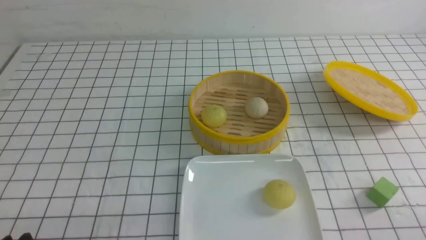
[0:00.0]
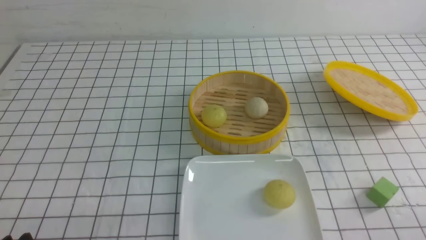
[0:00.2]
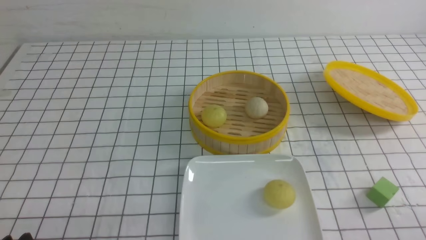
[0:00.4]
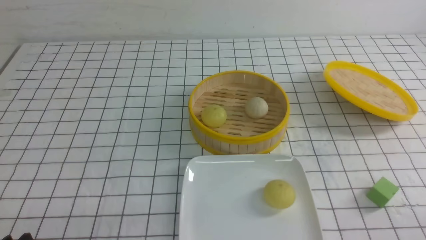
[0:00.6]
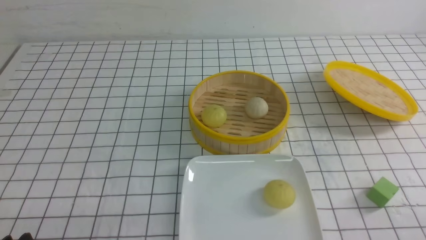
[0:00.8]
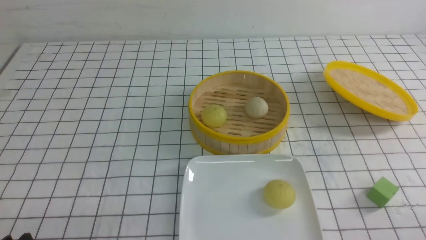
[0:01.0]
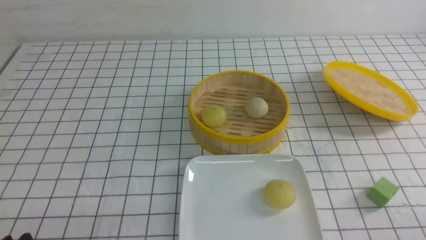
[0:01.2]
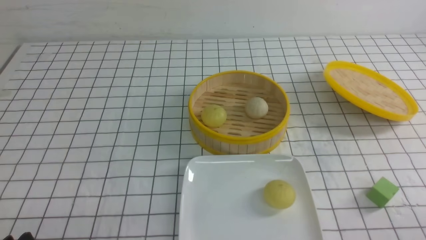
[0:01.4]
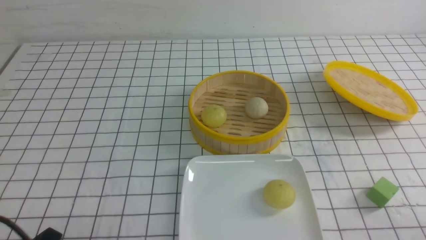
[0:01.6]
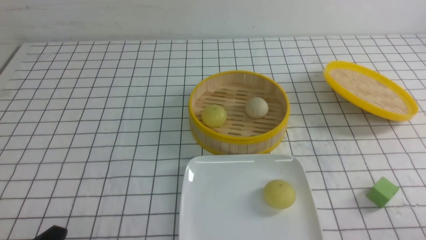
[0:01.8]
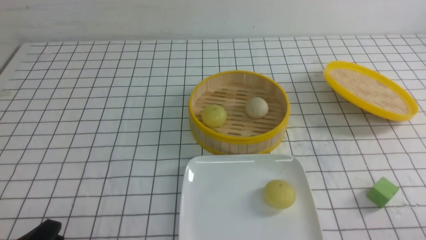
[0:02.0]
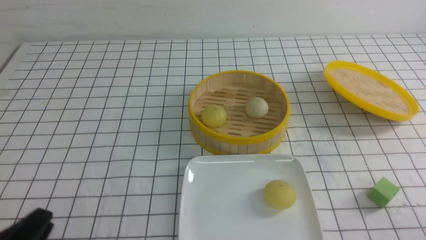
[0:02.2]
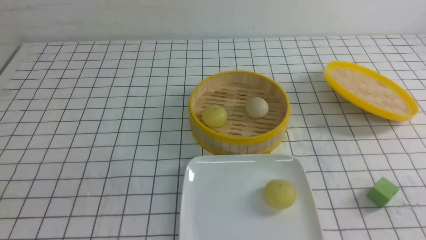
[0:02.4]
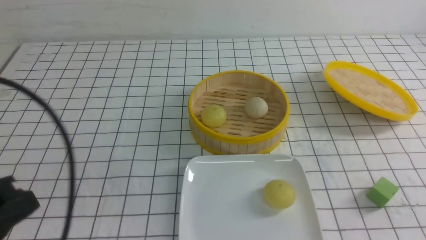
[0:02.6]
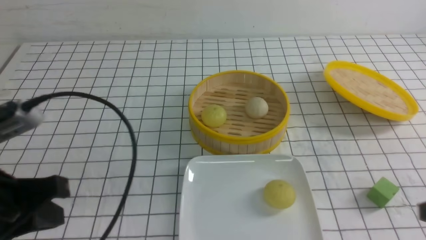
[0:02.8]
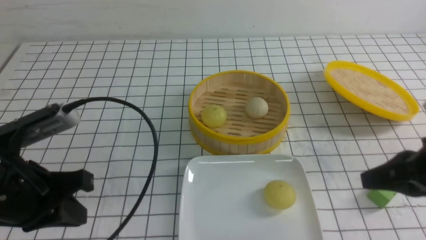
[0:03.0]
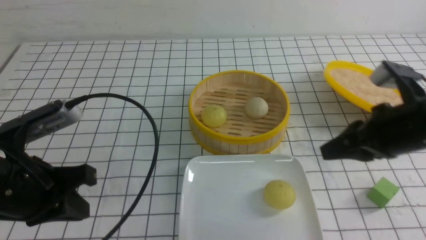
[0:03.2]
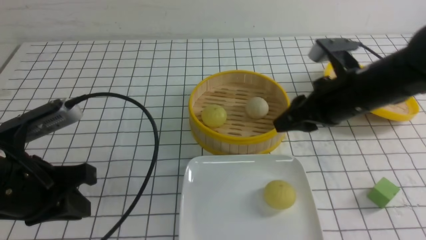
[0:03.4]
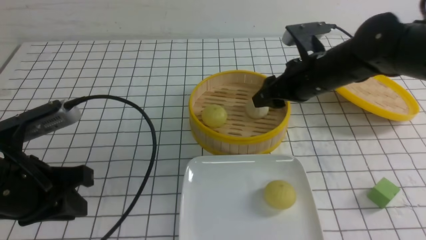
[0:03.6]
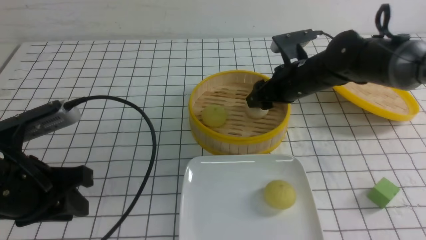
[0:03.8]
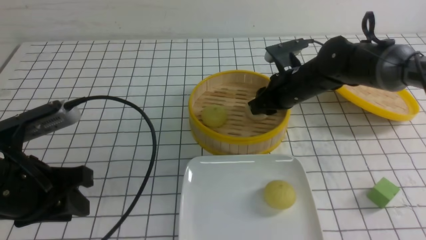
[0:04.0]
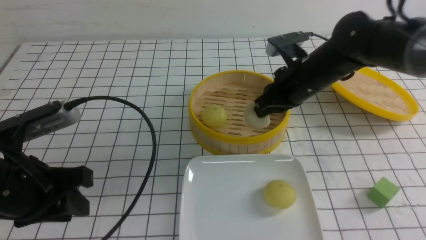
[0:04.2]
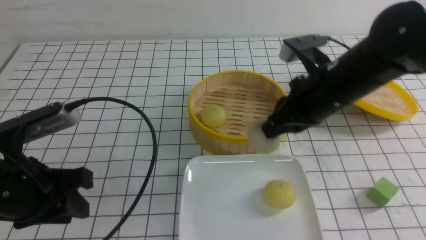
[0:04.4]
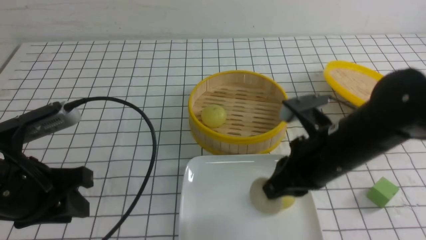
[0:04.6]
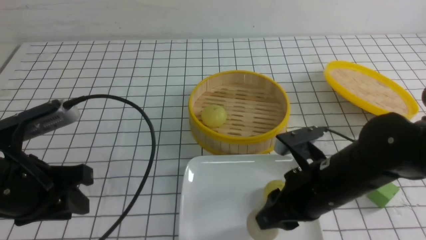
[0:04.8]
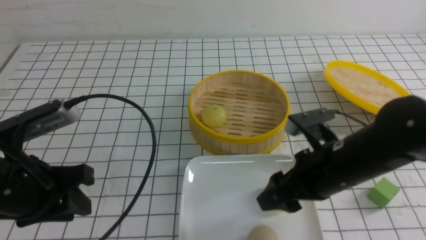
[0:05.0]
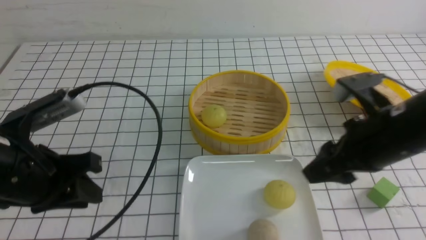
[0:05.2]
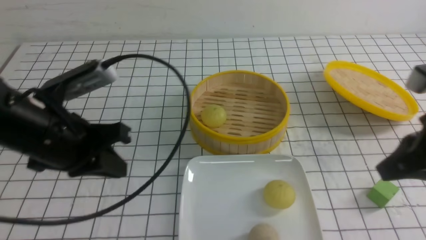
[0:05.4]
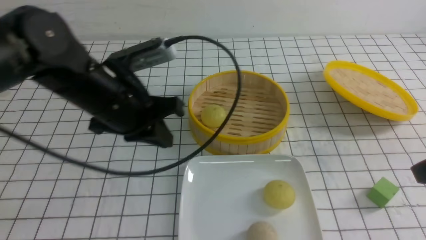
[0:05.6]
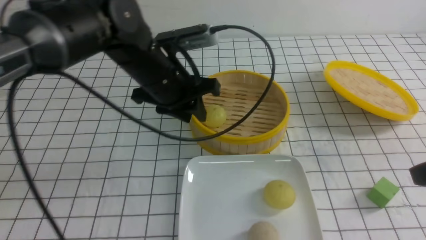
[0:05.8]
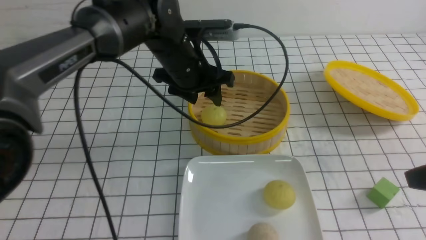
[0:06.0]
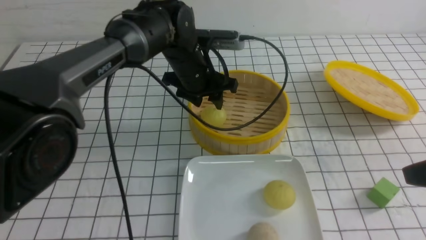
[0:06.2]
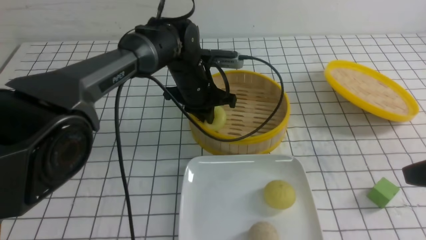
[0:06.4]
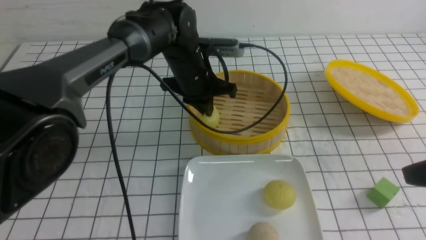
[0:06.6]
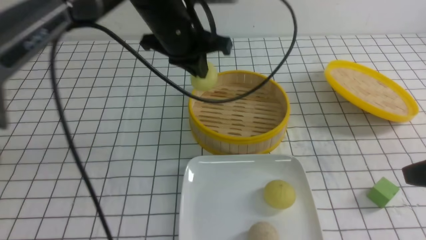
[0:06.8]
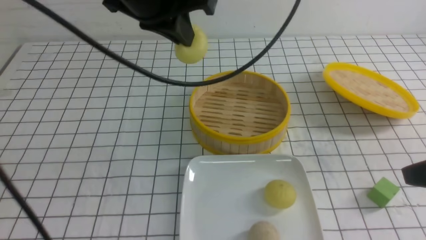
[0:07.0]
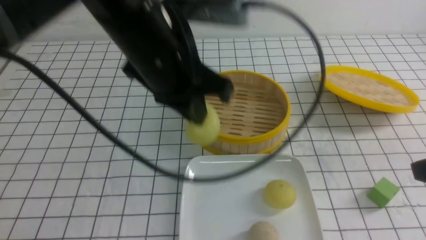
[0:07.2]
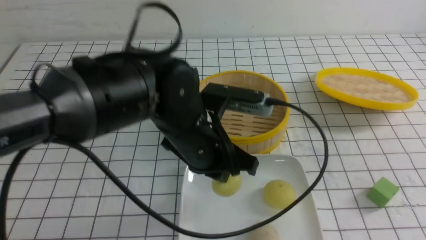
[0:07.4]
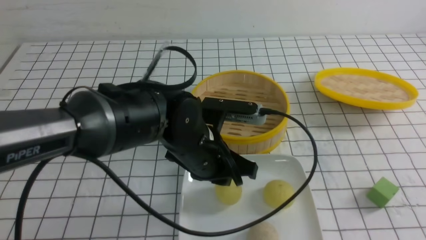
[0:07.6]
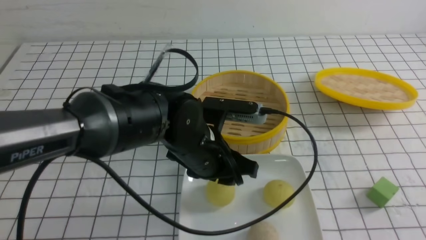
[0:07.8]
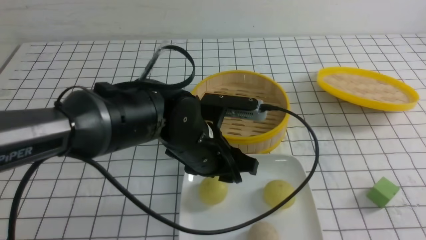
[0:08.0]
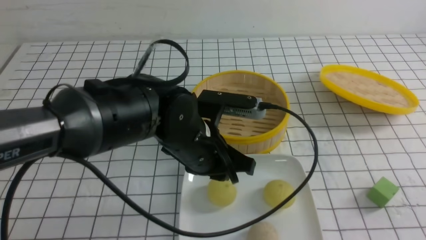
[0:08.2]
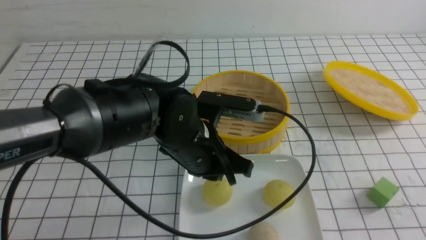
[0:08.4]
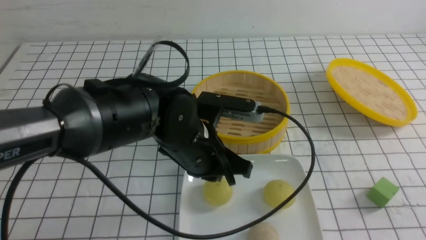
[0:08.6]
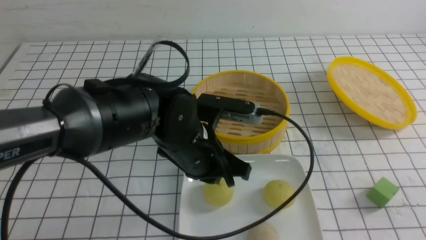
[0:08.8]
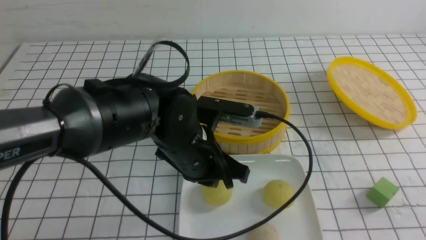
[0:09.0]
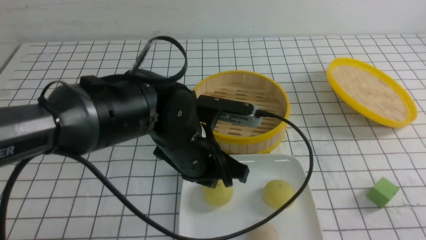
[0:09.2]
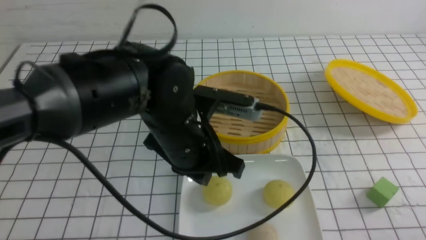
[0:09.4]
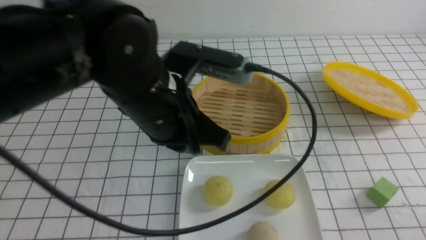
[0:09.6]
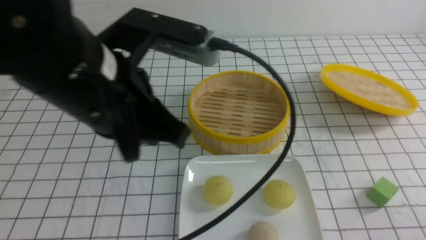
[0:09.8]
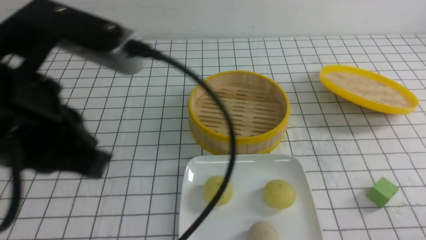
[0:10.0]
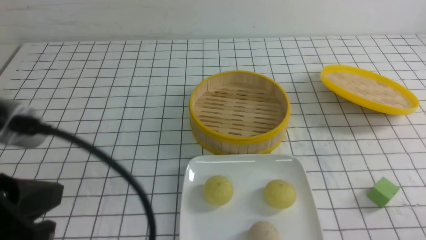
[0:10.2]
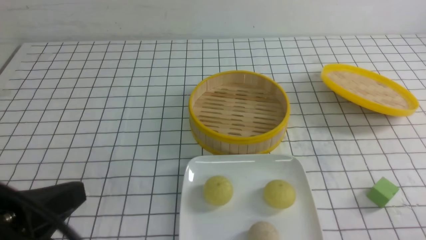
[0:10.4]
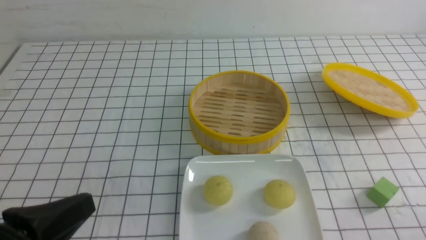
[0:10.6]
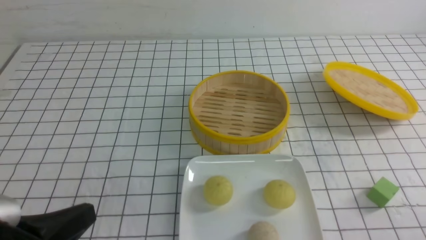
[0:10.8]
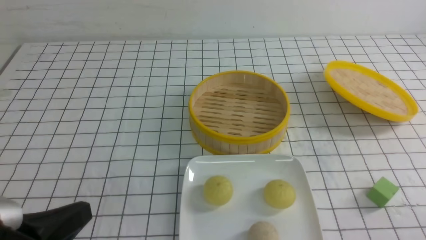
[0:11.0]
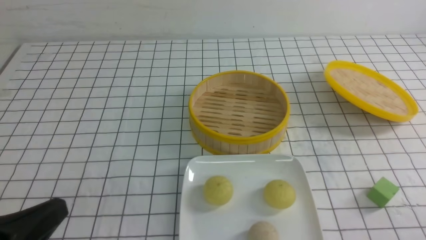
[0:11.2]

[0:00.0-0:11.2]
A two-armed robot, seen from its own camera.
Step, 0:00.0 to 0:04.0: use the right arm to grab the steamed stuffed bun that is closest to it.
Step, 0:04.2 to 0:05.0: use the right arm to put the steamed stuffed bun into the plate.
Step, 0:05.2 to 0:06.6: use the left arm to grab the steamed stuffed bun that is closest to it.
Step, 0:06.8 to 0:07.8: use the left arm to put the steamed stuffed bun into the plate.
0:01.6 to 0:03.2: The right gripper heads forward, upward and to the left, covering some 25 cm, and closes, then opens again; the left gripper shifts some 15 cm forward and upward, and closes up.
0:03.2 to 0:04.8: The left gripper opens its fingers. The right gripper is displaced to the left and downward by about 10 cm, and goes forward and returns, approximately 15 cm each way.
0:04.8 to 0:06.4: The left gripper is displaced forward and to the right by some 30 cm. Meanwhile the right gripper goes about 20 cm to the right, upward and backward, and closes.
0:06.4 to 0:08.0: Both grippers travel together backward, roughly 15 cm. The left gripper reaches approximately 15 cm upward, then returns, and opens up.
0:08.0 to 0:09.6: The right gripper is displaced downward by approximately 10 cm. Meanwhile the left gripper travels upward by some 10 cm, and closes its fingers.
0:09.6 to 0:11.2: The left gripper goes roughly 25 cm to the left, backward and downward.

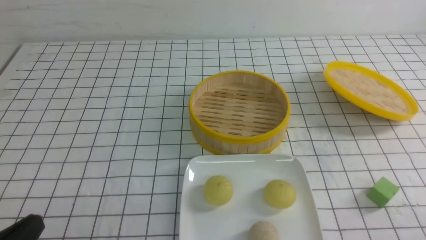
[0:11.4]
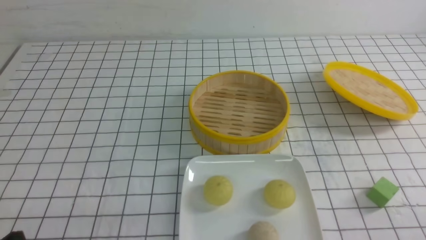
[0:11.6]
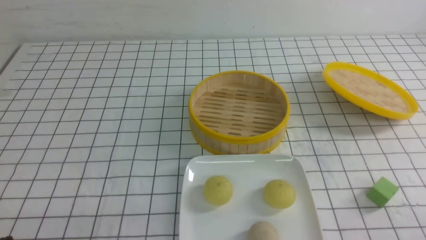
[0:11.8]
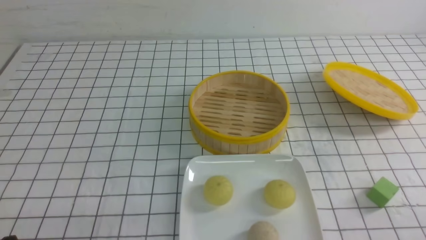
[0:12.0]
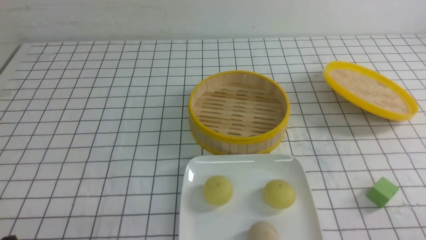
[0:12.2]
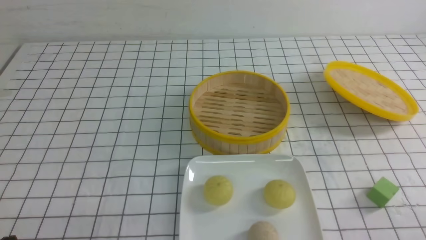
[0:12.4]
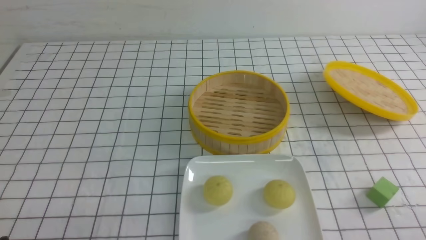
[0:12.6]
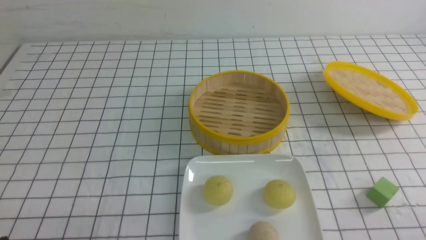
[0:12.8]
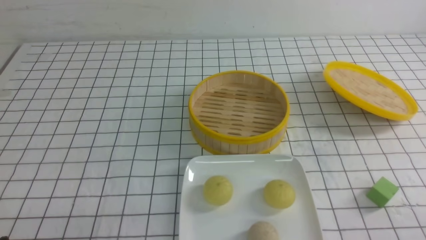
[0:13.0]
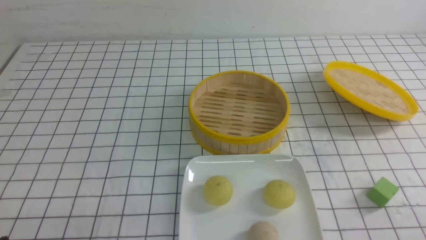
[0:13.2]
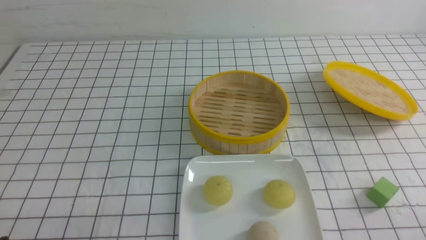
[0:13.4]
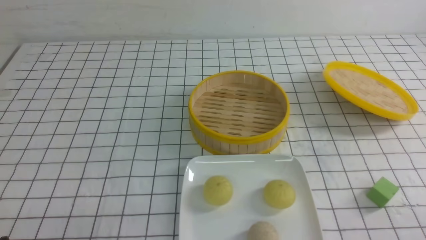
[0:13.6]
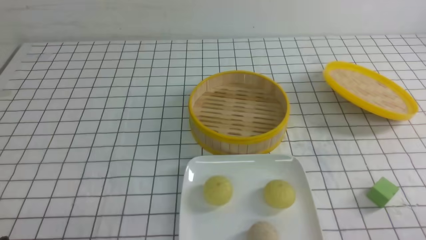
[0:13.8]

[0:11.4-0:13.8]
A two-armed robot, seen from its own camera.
0:11.4 to 0:12.6: The left gripper shifts roughly 5 cm downward.
0:12.6 to 0:13.8: Neither gripper changes place.
